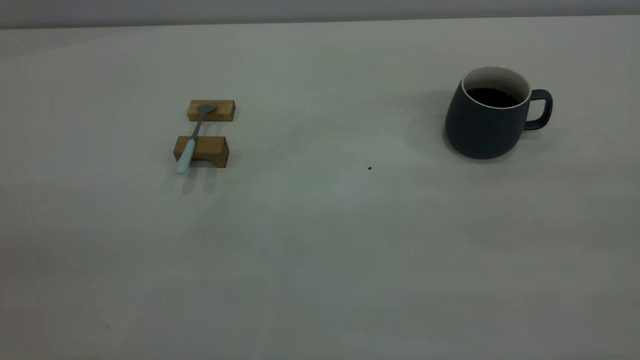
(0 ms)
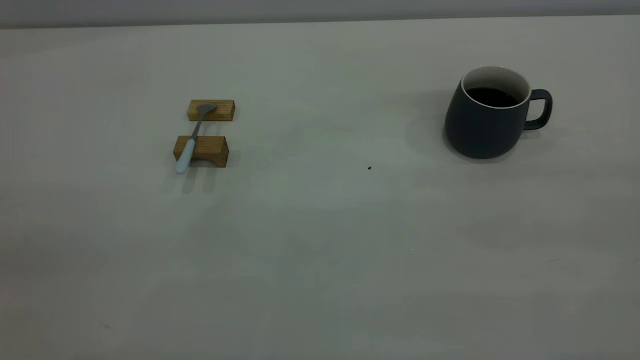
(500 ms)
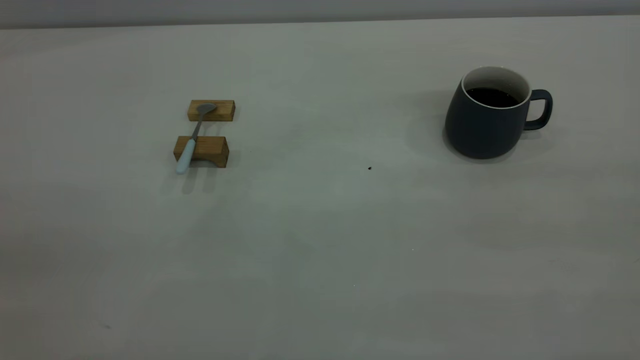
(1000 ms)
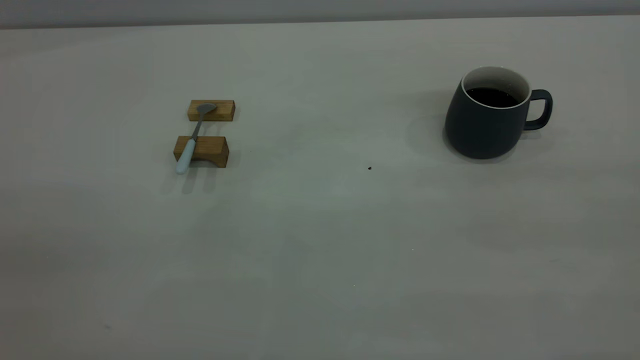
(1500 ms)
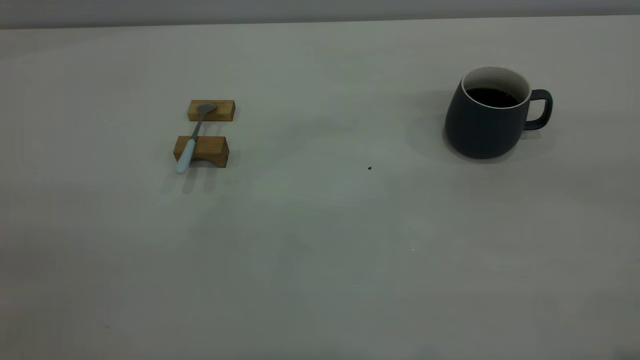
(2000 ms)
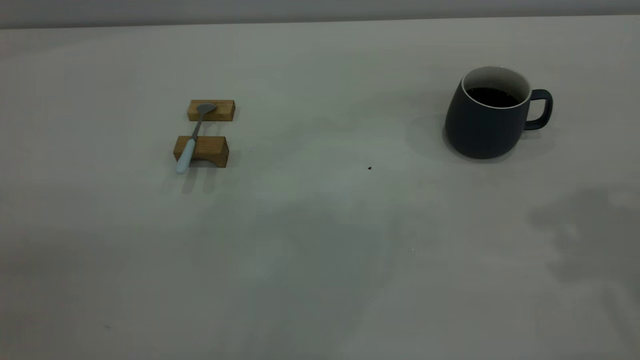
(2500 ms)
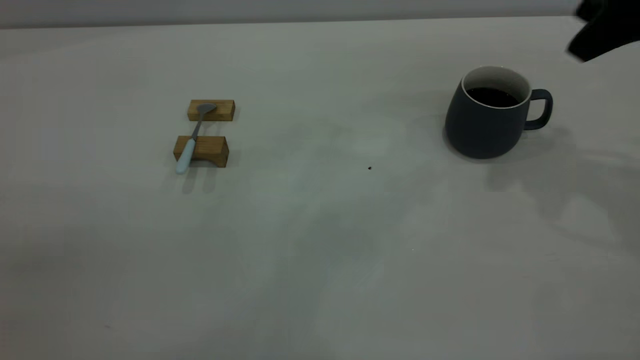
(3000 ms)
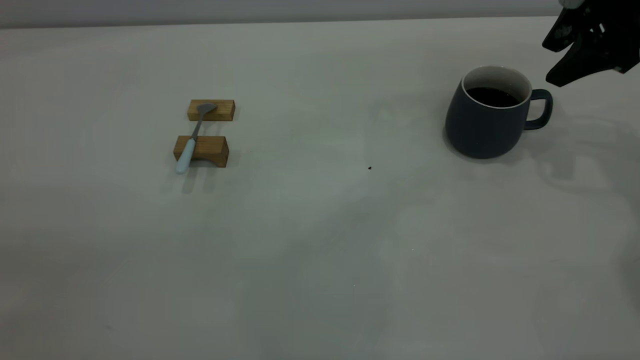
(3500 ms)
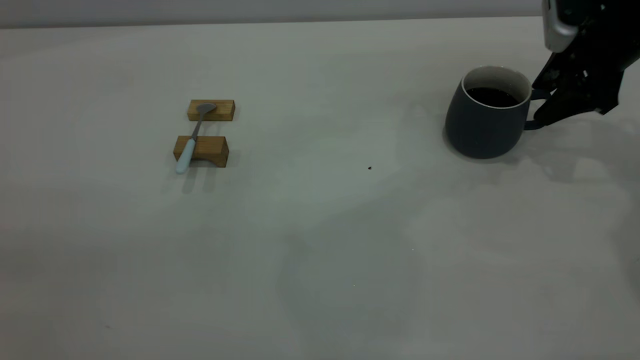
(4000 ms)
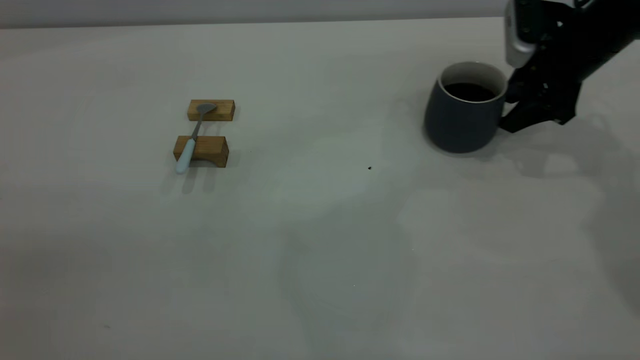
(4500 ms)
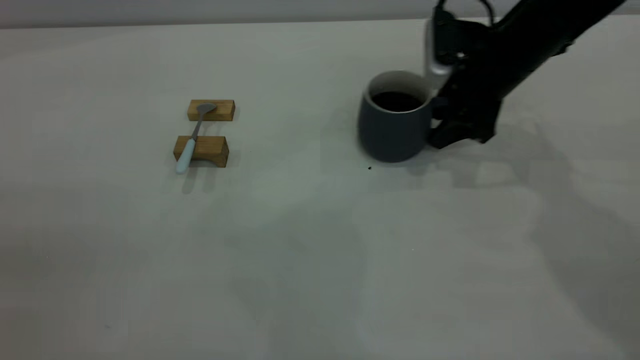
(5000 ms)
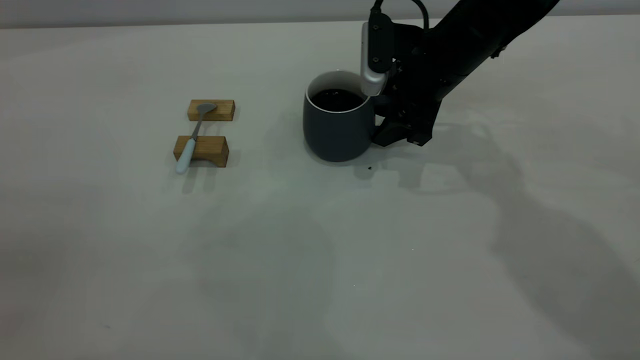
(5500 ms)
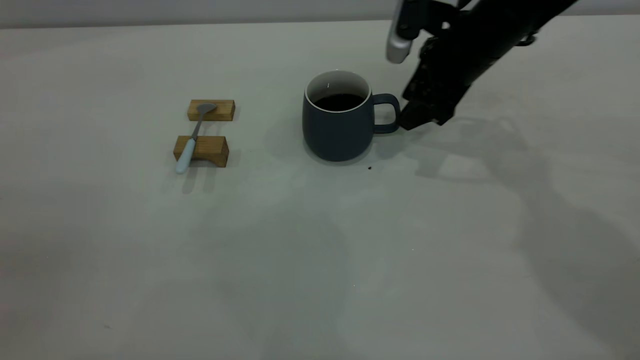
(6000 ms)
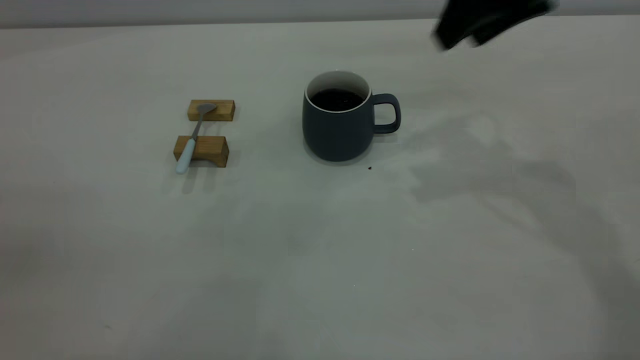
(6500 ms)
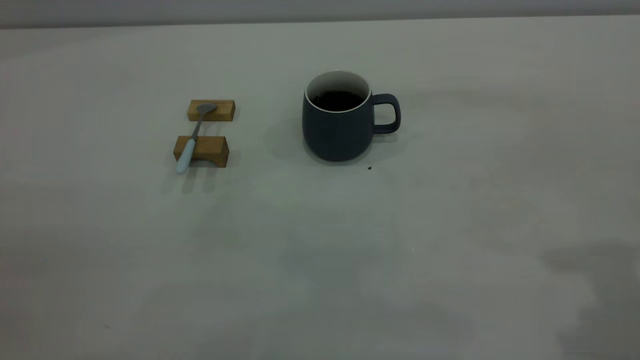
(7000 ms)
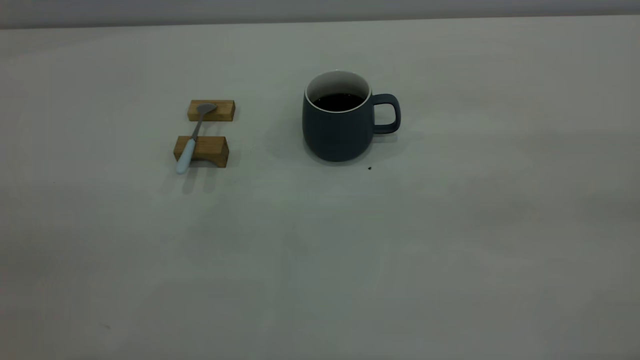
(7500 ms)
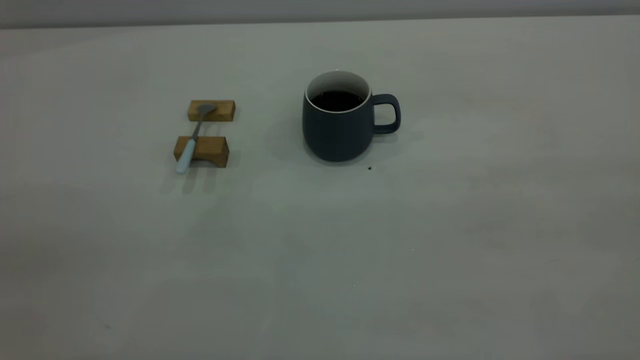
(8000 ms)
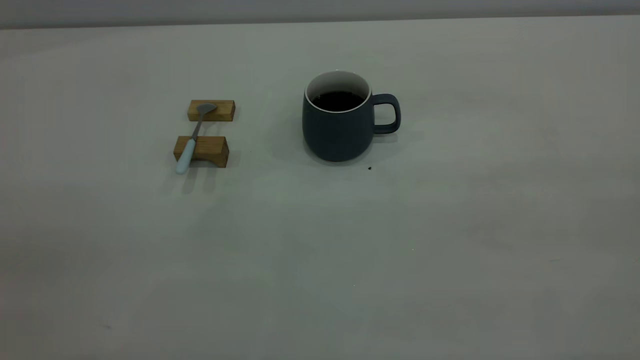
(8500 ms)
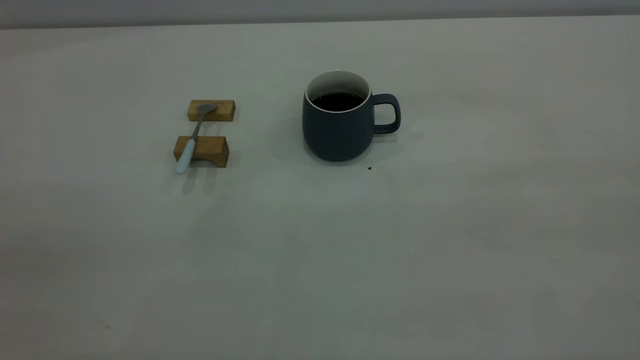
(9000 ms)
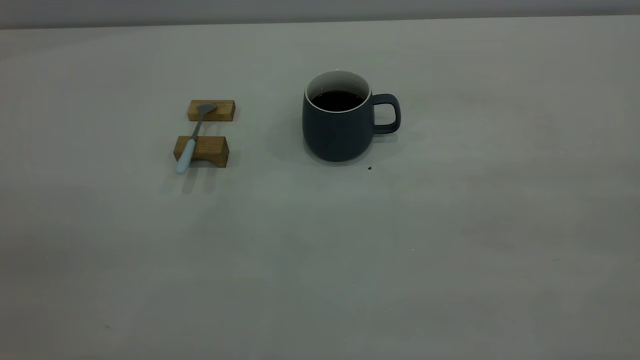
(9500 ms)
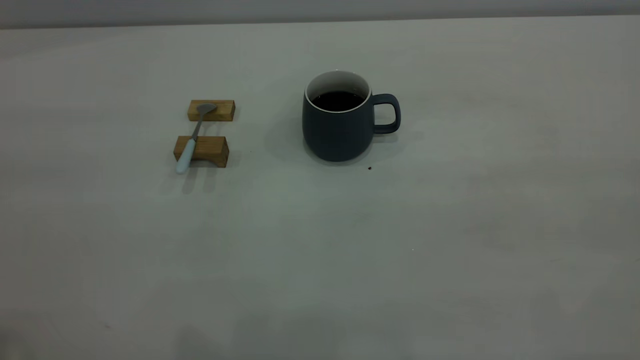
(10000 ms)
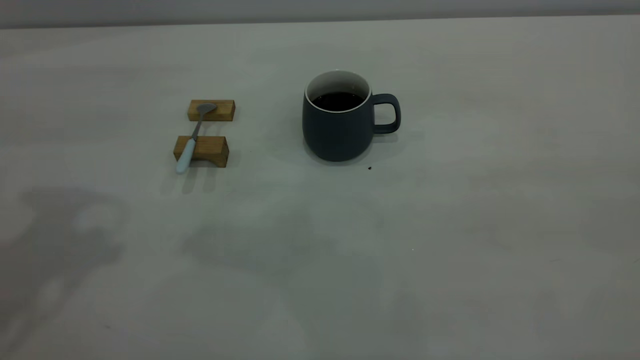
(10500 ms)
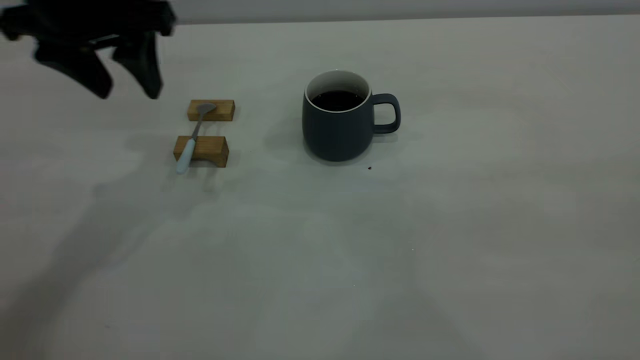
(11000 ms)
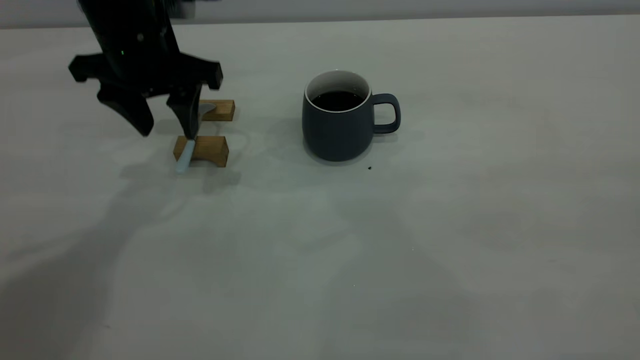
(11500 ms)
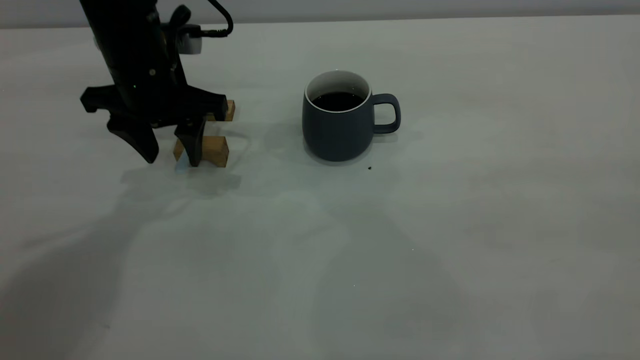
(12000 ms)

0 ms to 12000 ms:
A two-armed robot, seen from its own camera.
Step, 0 ms to 6000 ms: Move the cup with coffee to the center of view.
2000 ms to 4000 ms: The right gripper heads forward and downward, covering roughly 40 cm.
4000 ms to 6000 ms: The right gripper shifts about 15 cm to the left.
6000 ms to 8000 ms: The right gripper shifts some 50 cm backward and upward.
10000 ms to 12000 ms: The left gripper goes roughly 40 cm forward, downward and to the right.

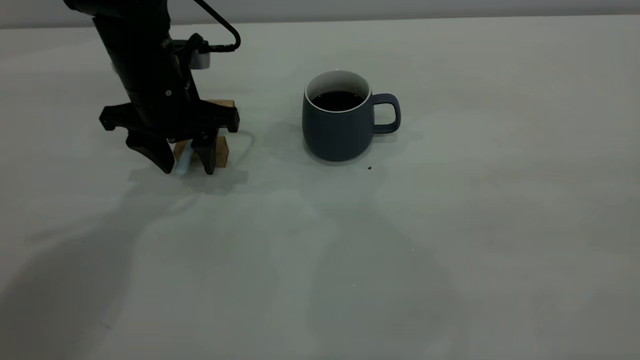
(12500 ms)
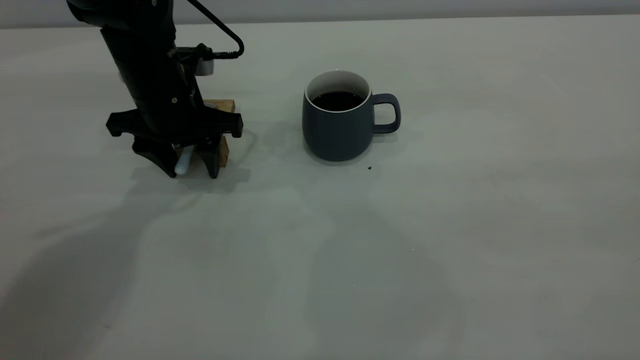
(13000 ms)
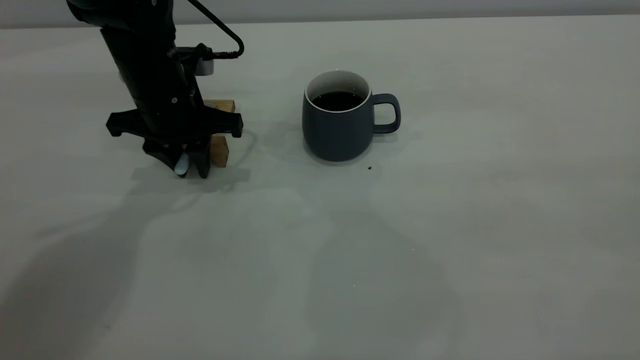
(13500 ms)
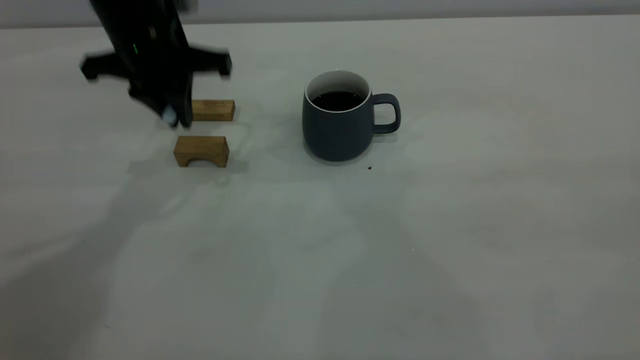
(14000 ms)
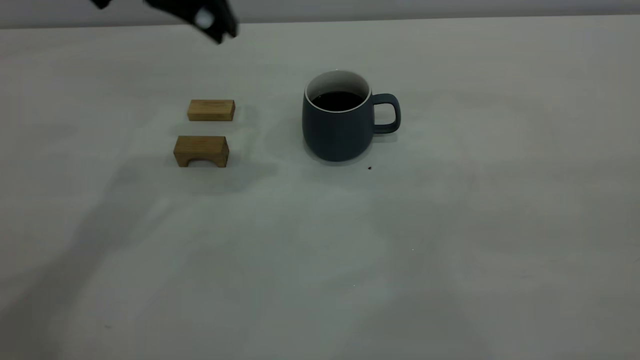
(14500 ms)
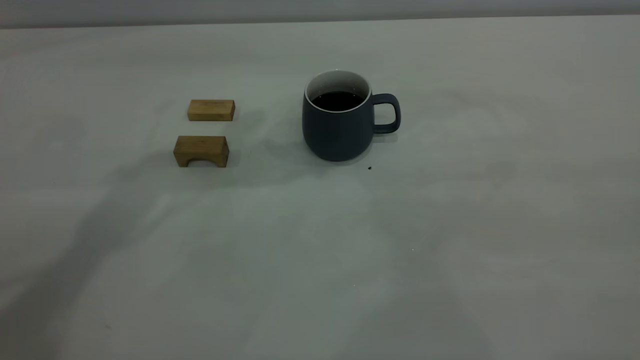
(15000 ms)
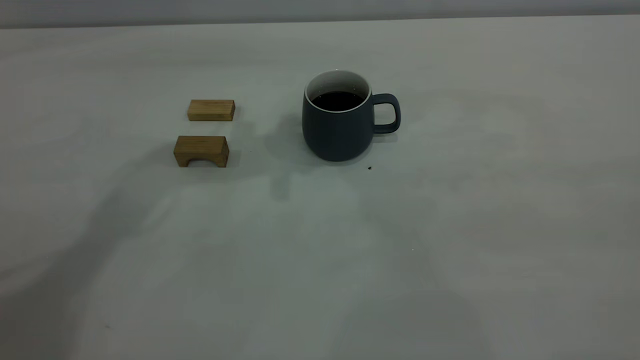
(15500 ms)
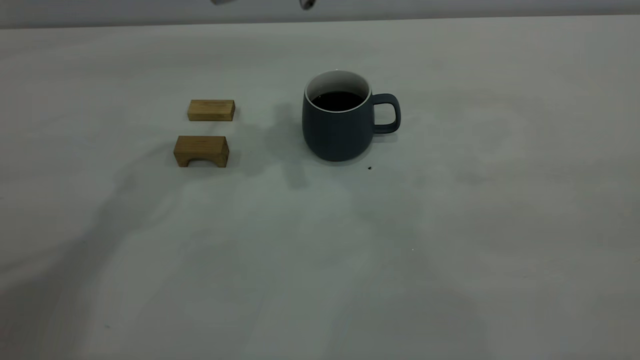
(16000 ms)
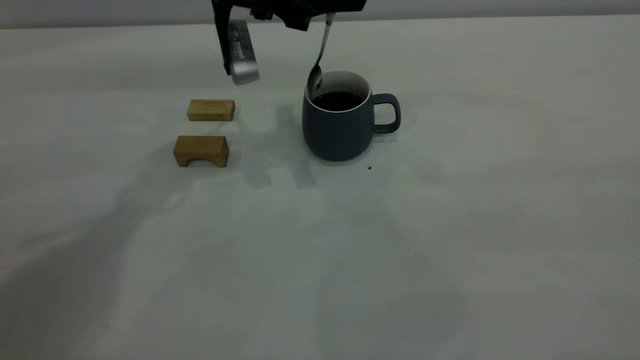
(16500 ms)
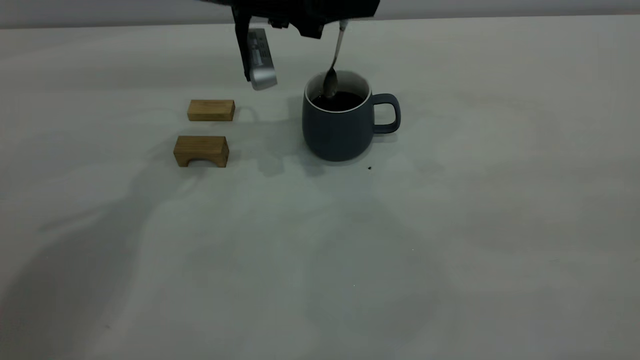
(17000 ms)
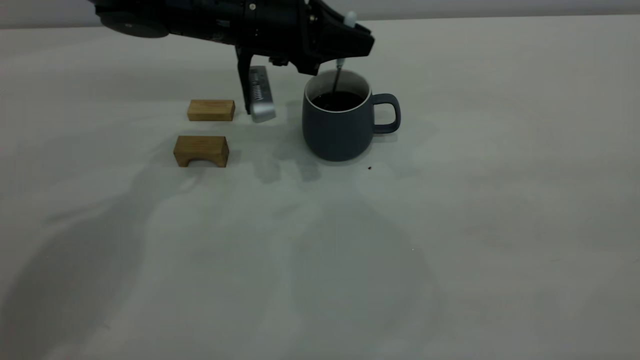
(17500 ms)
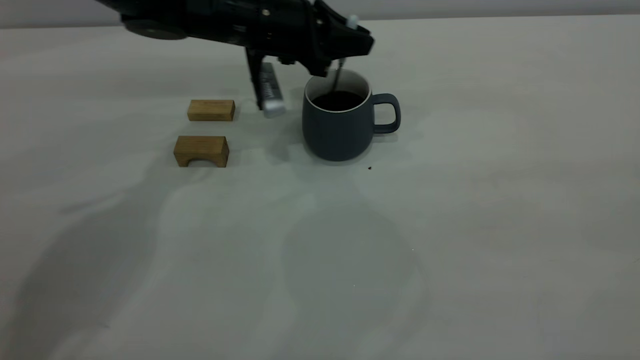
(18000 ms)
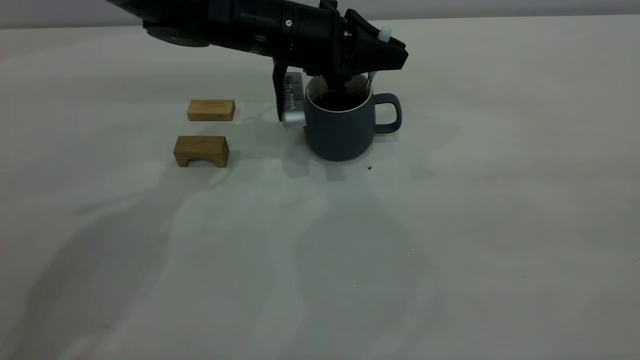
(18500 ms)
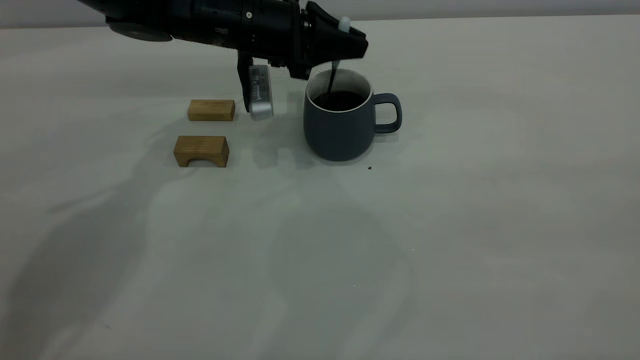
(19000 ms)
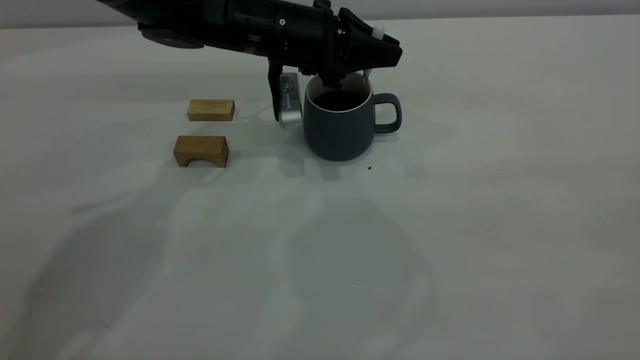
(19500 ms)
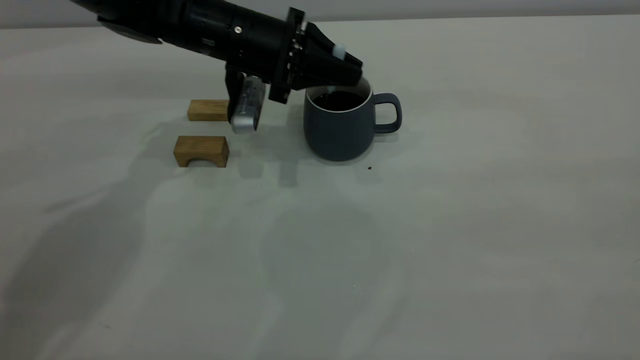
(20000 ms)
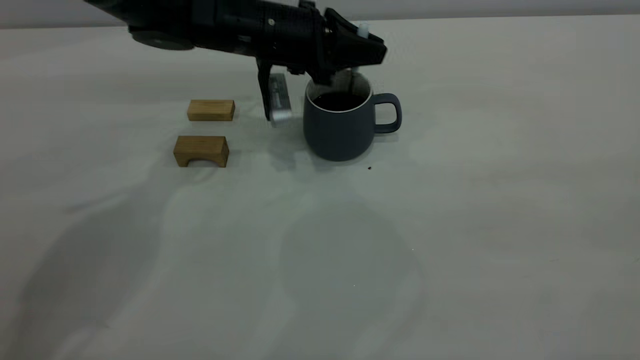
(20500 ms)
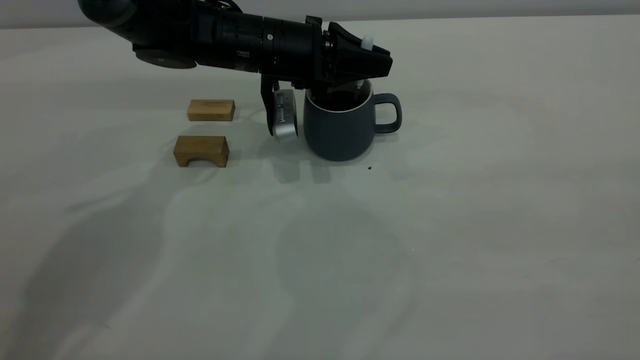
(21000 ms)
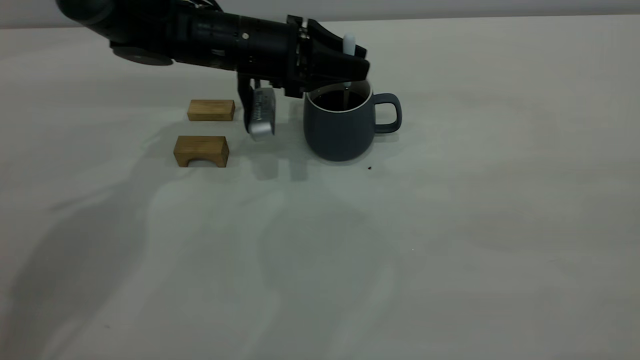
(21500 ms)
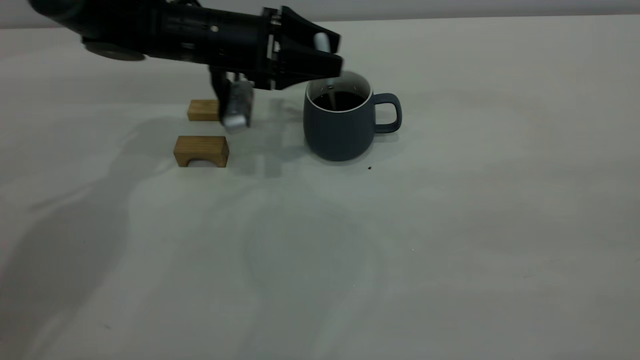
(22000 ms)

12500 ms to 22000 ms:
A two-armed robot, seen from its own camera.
12500 ms to 14500 ms: The left gripper heads upward, covering about 20 cm, and closes up.
14500 ms to 16500 ms: The left gripper shifts approximately 10 cm downward.
16500 ms to 18000 ms: The left gripper moves downward, about 10 cm.
18000 ms to 20000 ms: The grippers move only a little.
20000 ms to 22000 ms: The left gripper opens.
